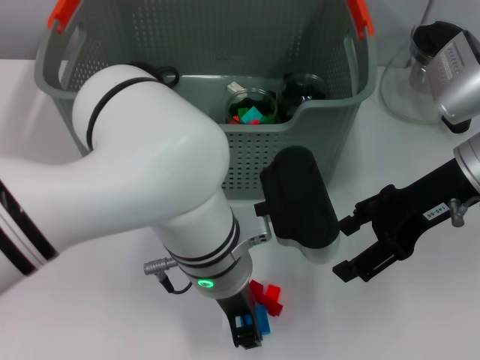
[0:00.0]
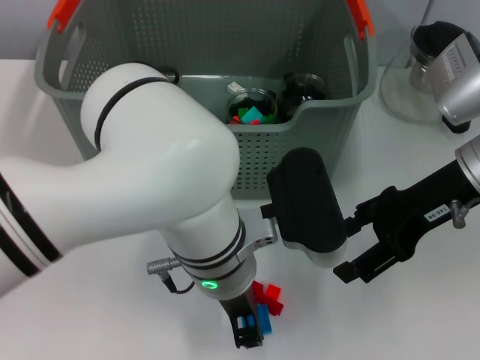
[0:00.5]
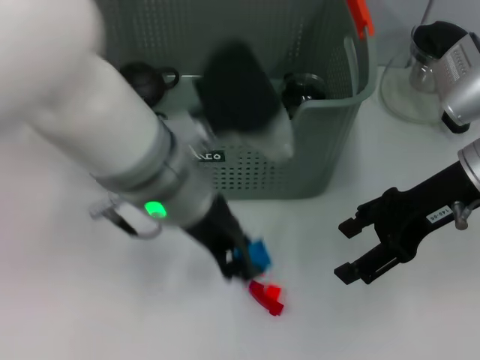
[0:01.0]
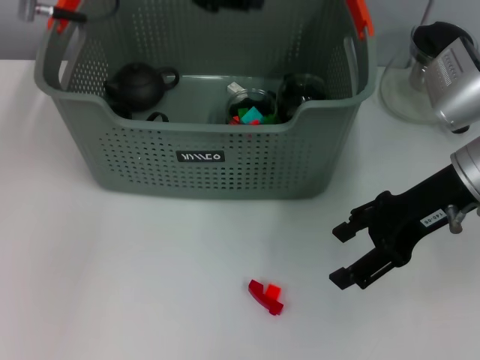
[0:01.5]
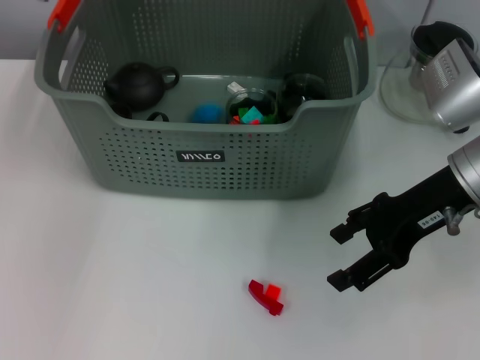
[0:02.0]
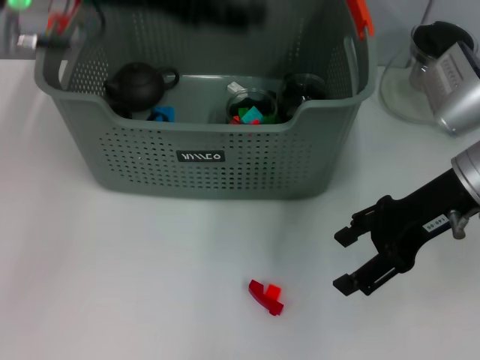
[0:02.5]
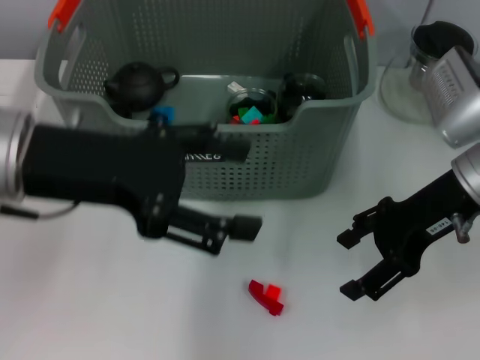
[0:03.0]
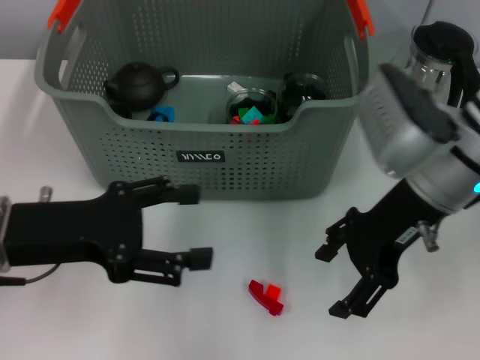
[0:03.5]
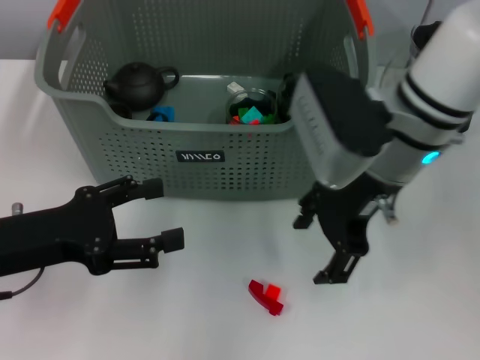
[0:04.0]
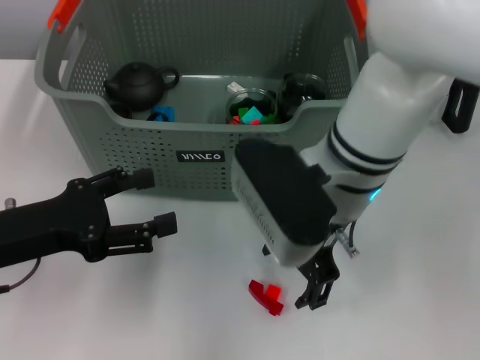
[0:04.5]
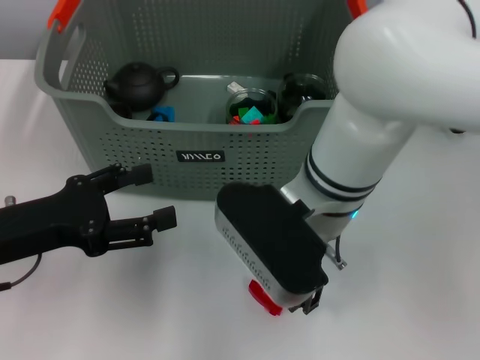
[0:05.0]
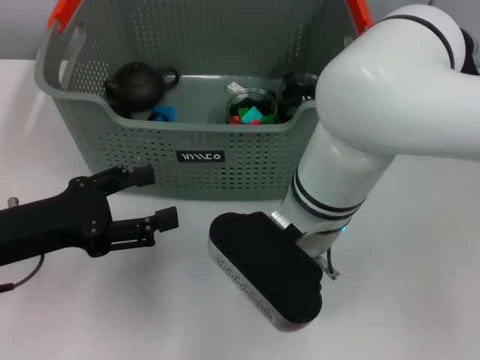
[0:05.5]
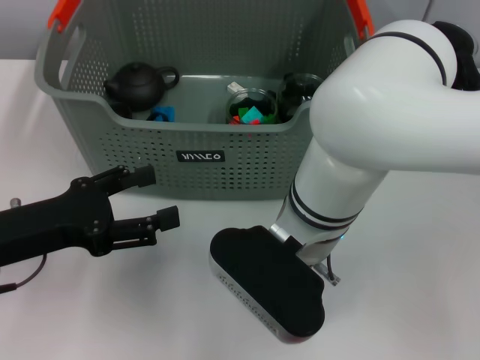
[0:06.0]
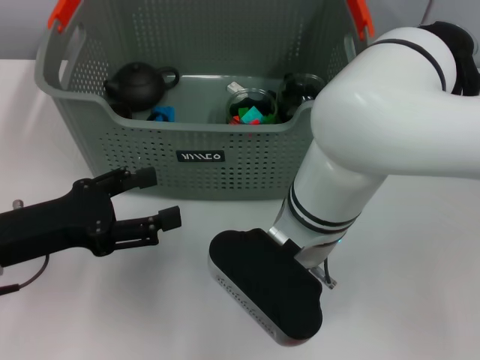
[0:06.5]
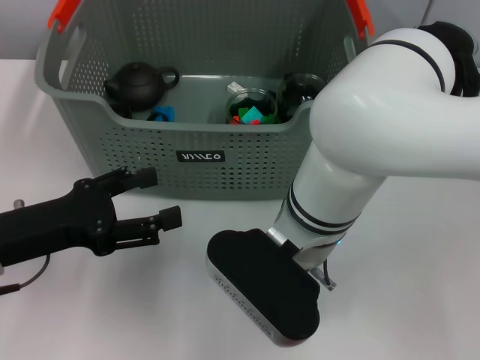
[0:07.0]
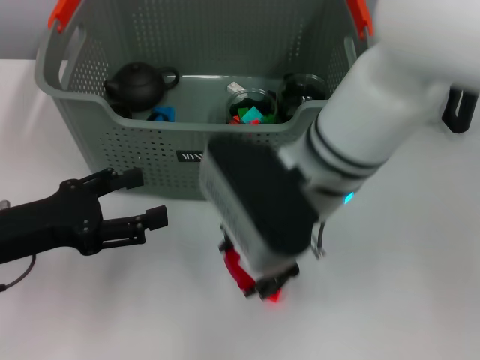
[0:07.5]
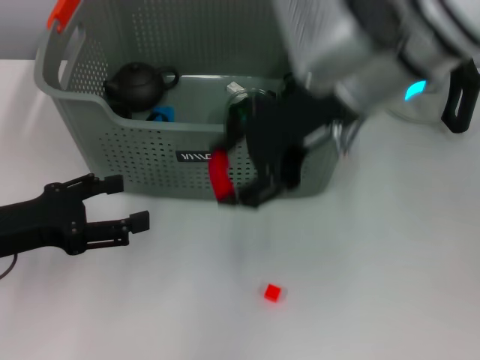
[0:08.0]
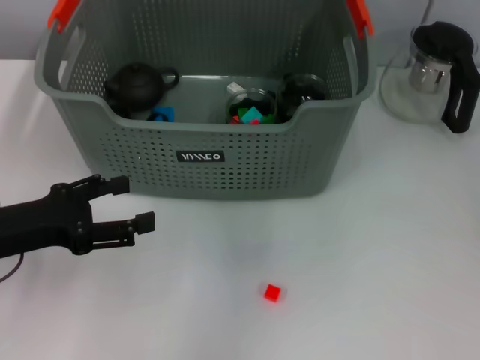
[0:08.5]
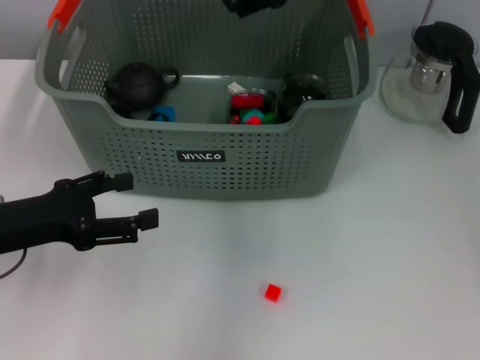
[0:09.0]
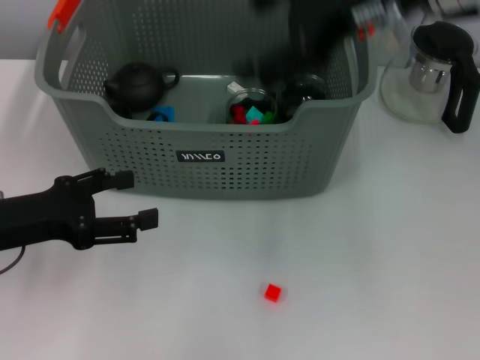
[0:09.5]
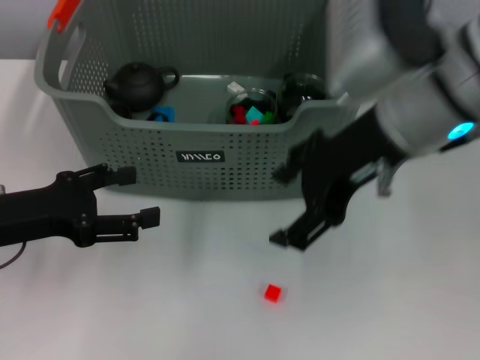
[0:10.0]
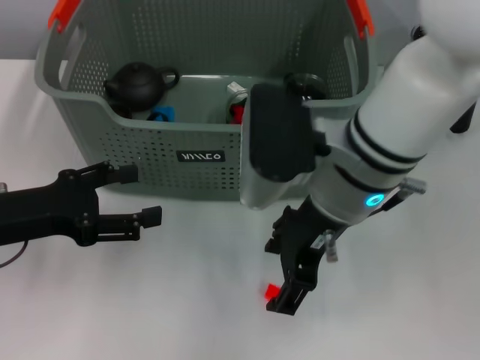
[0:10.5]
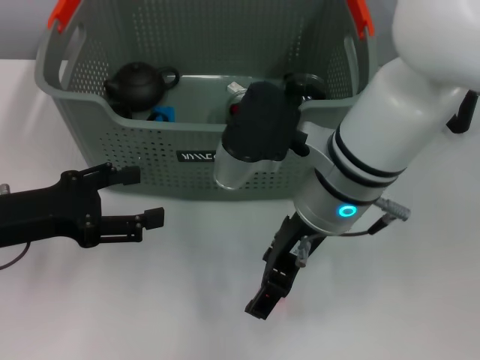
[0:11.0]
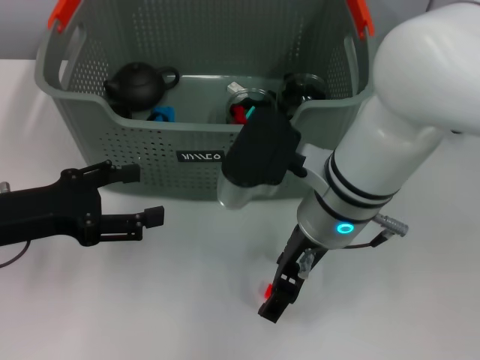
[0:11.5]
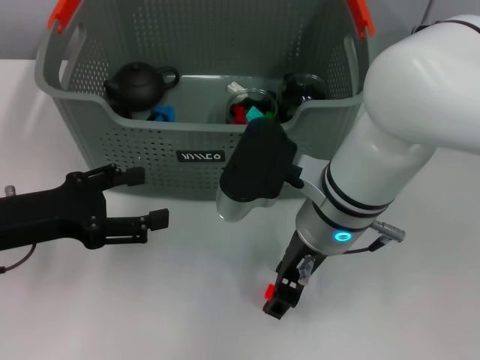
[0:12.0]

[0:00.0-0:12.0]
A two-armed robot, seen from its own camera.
Task of the whole recording: pick up the teacup on the table and place it into the storage bin, pick up the block on the table and place it into the storage bin.
Step, 0:00.5 to 0:02.0: Place the dark blue block in the storage box with left gripper.
Step, 0:02.5 to 0:06.5: Grasp the red block with right gripper.
Step, 0:07.0 to 0:09.0: Place the red block in the storage box with right gripper.
0:00.0 to 0:02.0: The left gripper heads forward, upward and to the left, covering about 25 cm.
0:02.0 to 0:04.0: The right gripper is displaced to the left by approximately 10 cm; the left gripper shifts approximately 25 cm backward, downward and to the left, and opens.
0:04.0 to 0:06.0: The right gripper goes some 10 cm to the left, backward and downward.
0:06.0 to 0:08.0: The right gripper heads upward, covering approximately 15 cm.
0:08.0 to 0:10.0: The right gripper reaches approximately 10 cm forward, then returns.
0:10.0 to 0:12.0: The right gripper travels downward and to the left by about 15 cm.
